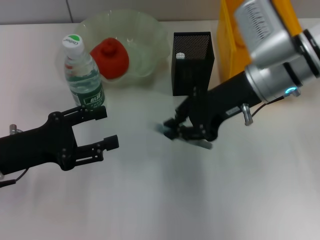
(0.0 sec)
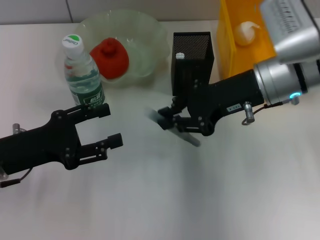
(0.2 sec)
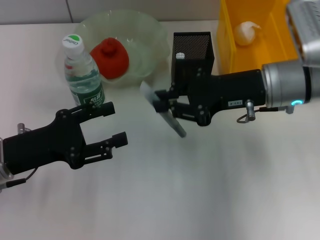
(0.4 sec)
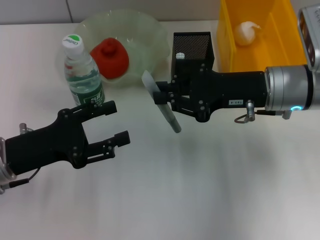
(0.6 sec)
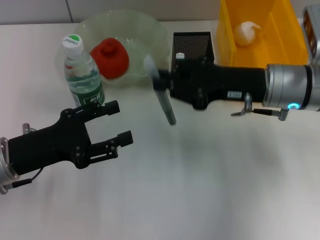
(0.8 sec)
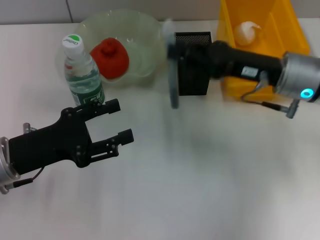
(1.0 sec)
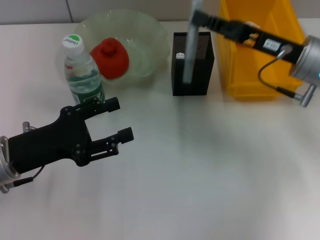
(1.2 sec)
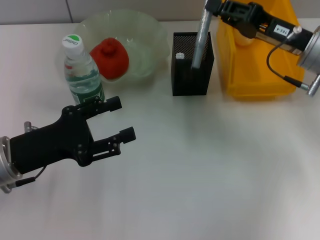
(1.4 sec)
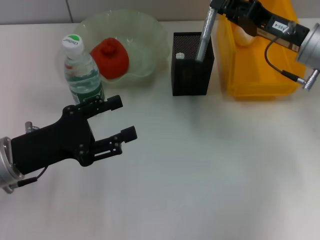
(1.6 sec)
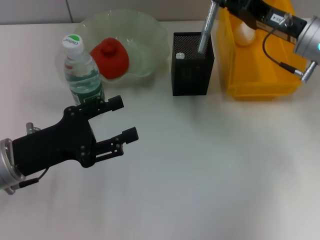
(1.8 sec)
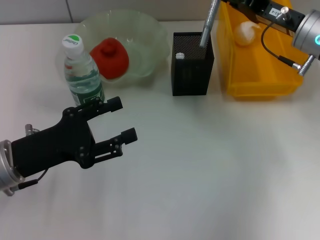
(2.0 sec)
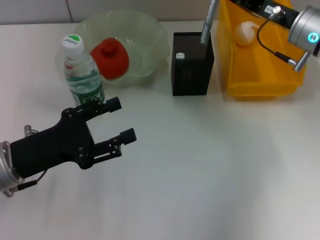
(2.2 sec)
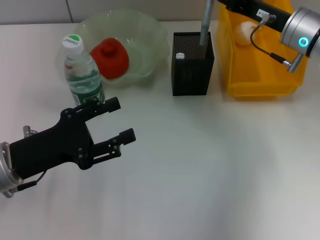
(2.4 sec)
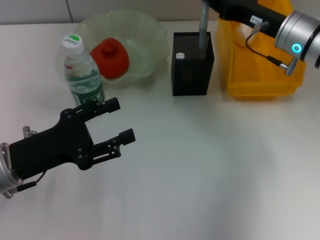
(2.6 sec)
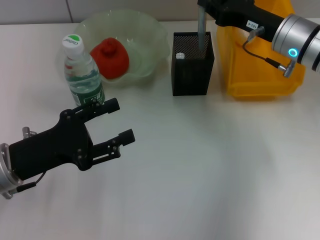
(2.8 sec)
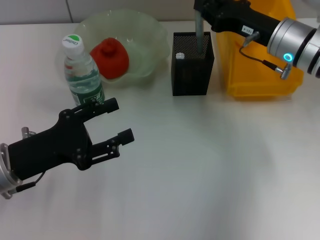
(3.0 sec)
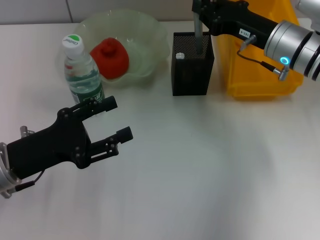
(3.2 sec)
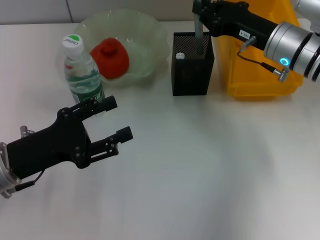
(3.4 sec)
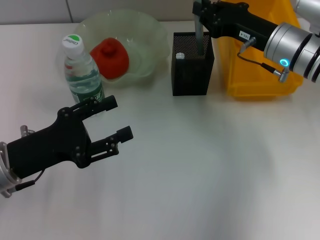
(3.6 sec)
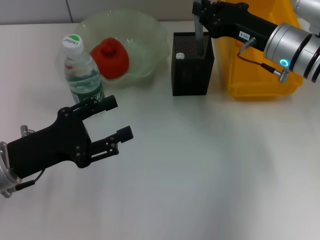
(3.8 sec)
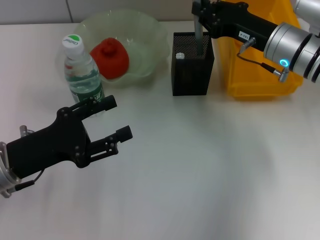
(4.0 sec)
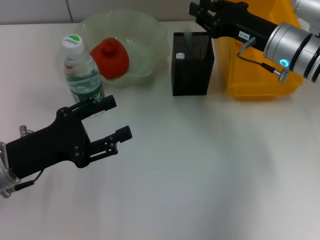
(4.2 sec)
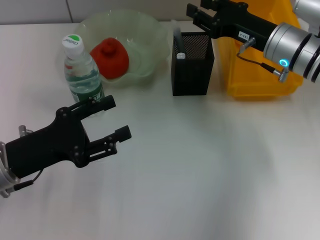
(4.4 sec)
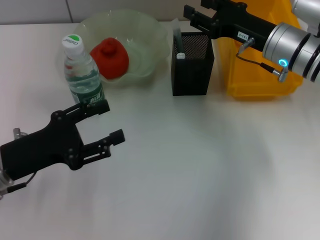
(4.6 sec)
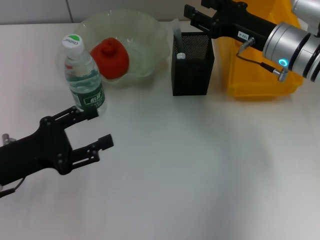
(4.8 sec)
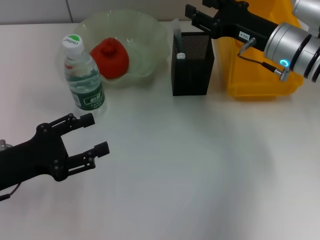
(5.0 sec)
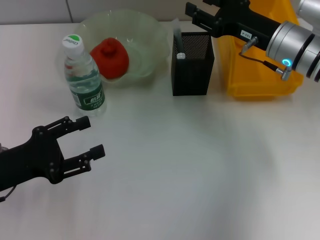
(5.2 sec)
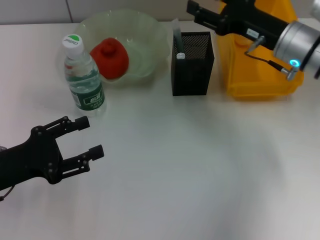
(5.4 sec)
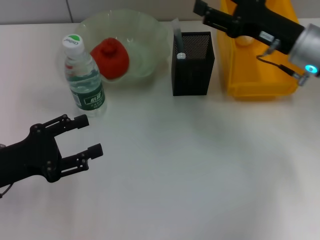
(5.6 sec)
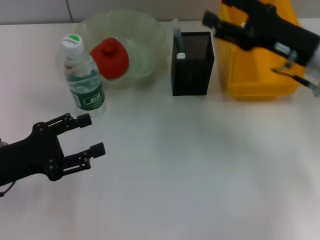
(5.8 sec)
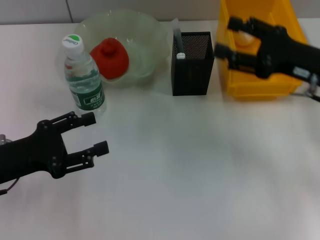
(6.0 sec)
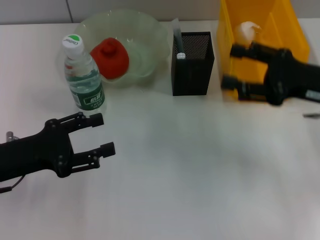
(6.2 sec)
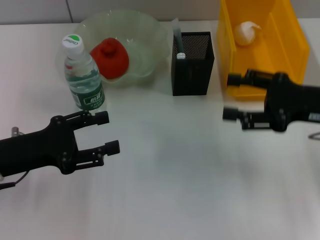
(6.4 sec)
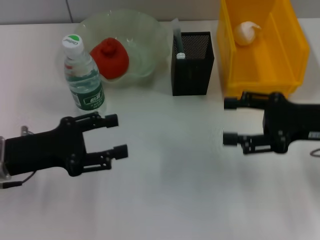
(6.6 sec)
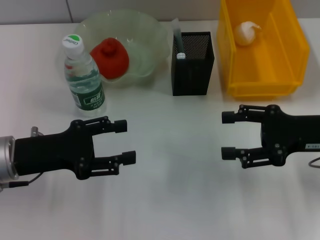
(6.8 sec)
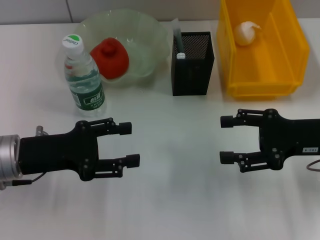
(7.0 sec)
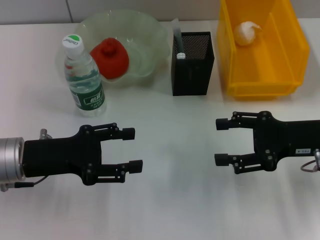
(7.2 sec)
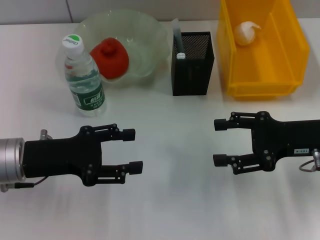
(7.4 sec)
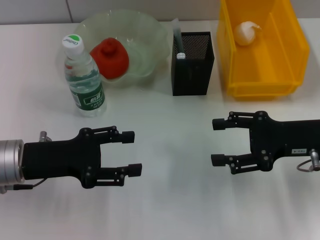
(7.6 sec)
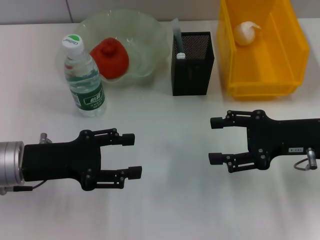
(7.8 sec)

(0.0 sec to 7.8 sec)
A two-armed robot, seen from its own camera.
Step, 0.0 sec - 4.4 sec: Place the gray glue into the pen holder with the right hand.
0.0 sec - 1.6 sec: The right gripper is displaced to the right by about 10 cm.
3.2 sec - 4.6 sec: The right gripper opens up.
4.6 sec - 6.2 sec: The right gripper shifts roughly 10 cm backward and to the right, and opens.
